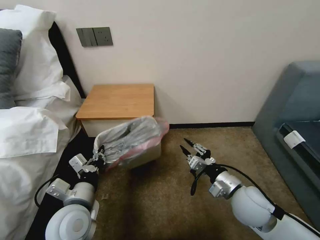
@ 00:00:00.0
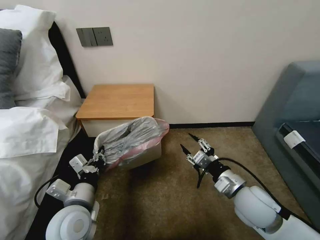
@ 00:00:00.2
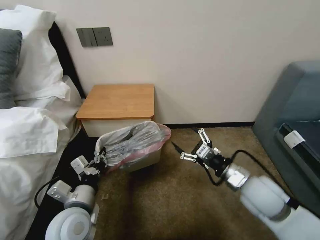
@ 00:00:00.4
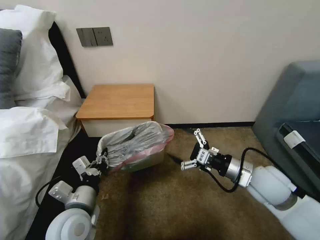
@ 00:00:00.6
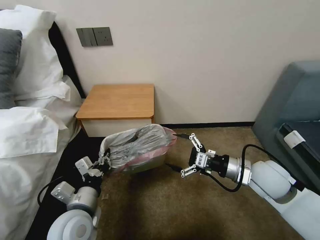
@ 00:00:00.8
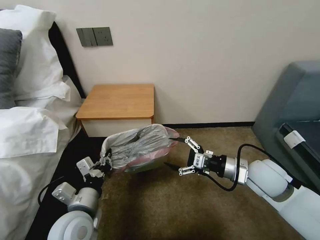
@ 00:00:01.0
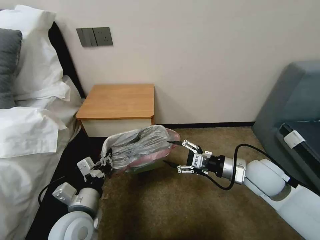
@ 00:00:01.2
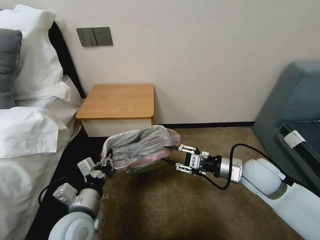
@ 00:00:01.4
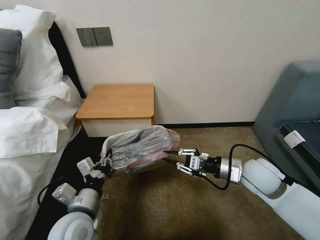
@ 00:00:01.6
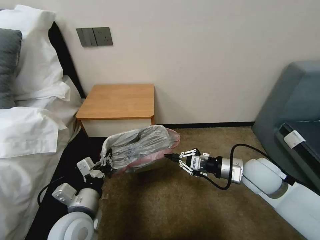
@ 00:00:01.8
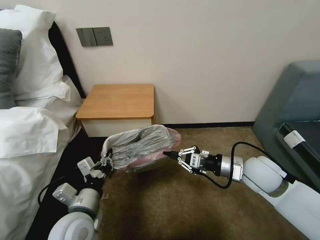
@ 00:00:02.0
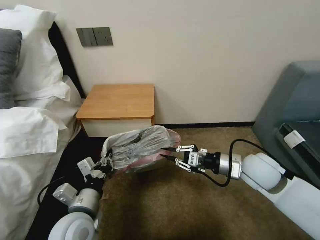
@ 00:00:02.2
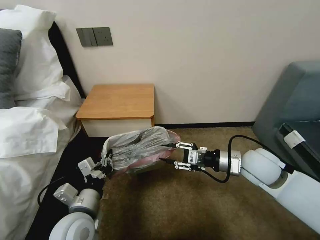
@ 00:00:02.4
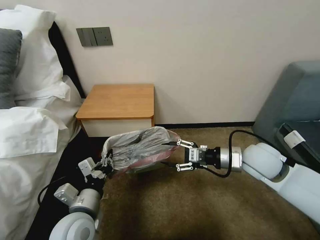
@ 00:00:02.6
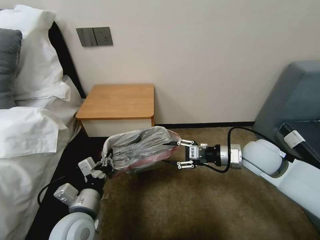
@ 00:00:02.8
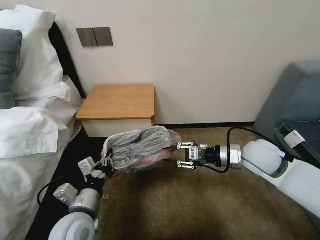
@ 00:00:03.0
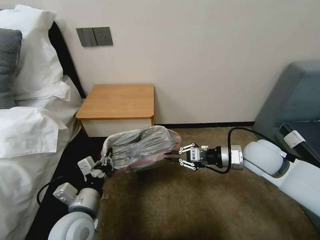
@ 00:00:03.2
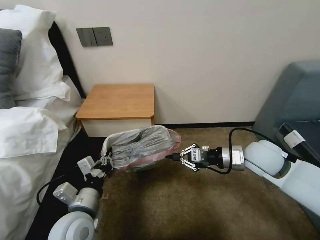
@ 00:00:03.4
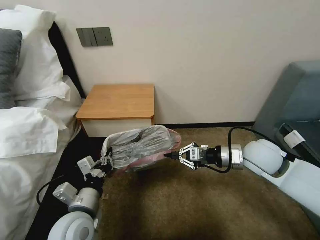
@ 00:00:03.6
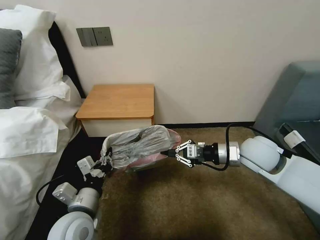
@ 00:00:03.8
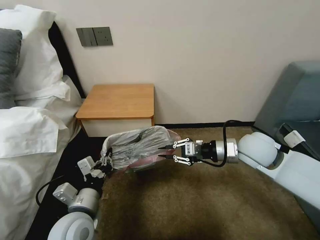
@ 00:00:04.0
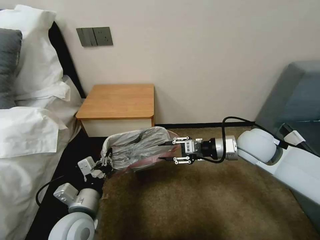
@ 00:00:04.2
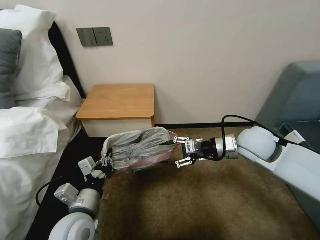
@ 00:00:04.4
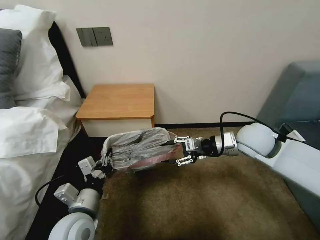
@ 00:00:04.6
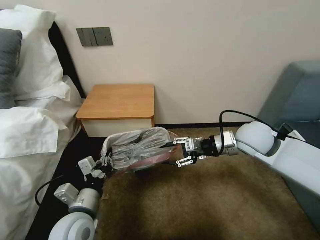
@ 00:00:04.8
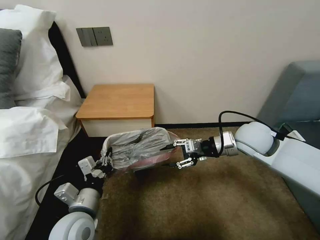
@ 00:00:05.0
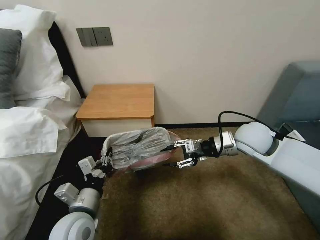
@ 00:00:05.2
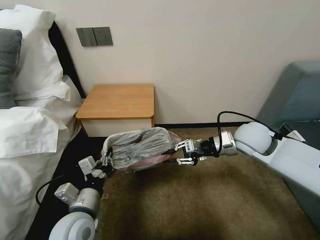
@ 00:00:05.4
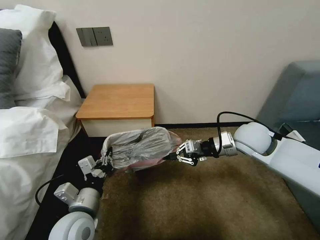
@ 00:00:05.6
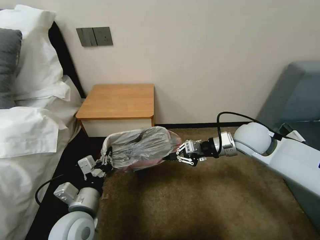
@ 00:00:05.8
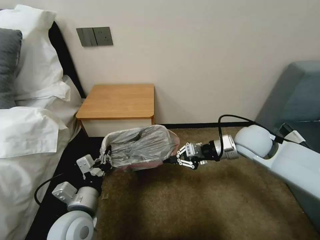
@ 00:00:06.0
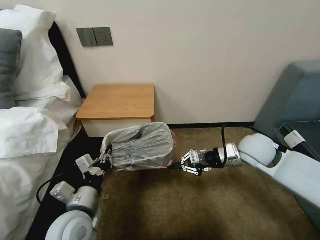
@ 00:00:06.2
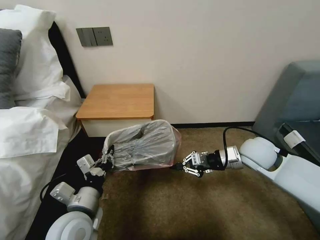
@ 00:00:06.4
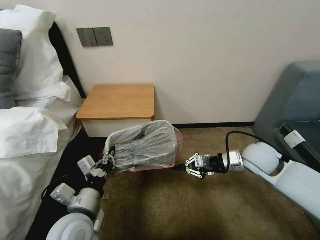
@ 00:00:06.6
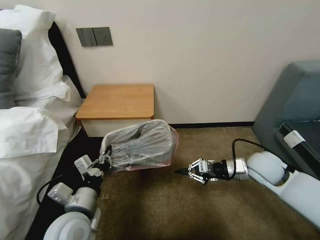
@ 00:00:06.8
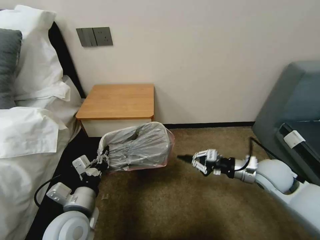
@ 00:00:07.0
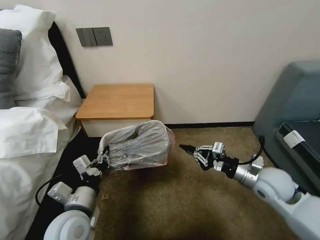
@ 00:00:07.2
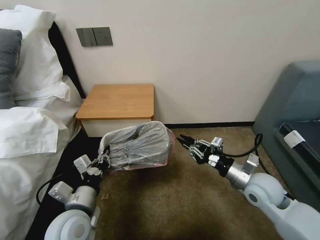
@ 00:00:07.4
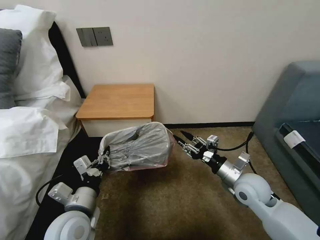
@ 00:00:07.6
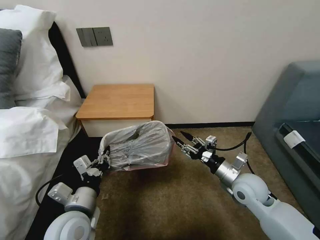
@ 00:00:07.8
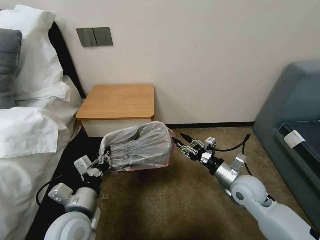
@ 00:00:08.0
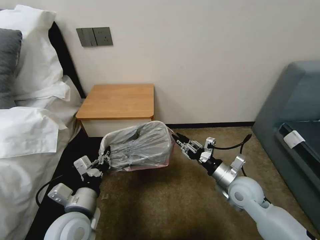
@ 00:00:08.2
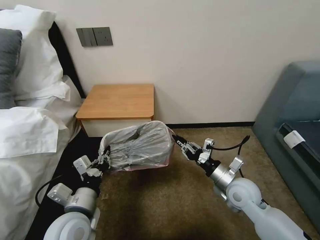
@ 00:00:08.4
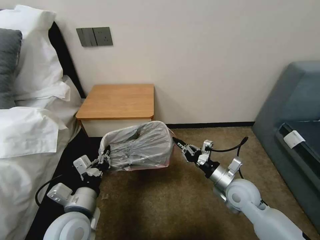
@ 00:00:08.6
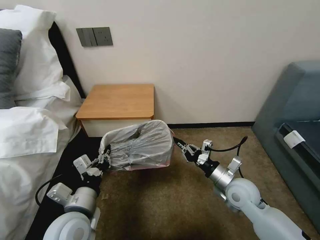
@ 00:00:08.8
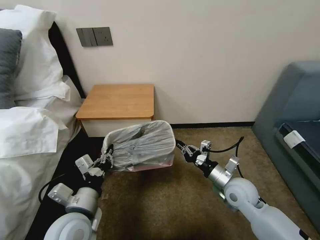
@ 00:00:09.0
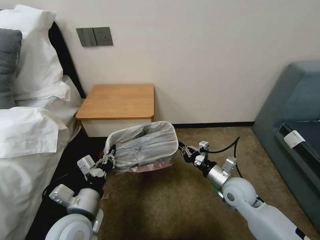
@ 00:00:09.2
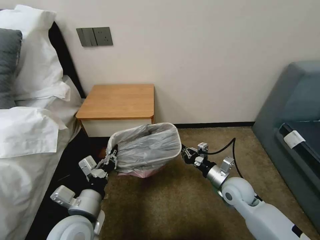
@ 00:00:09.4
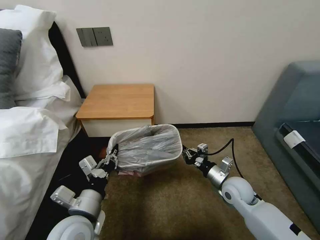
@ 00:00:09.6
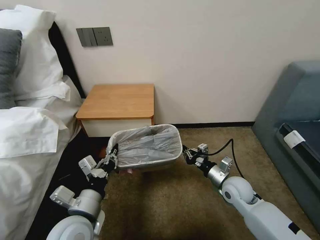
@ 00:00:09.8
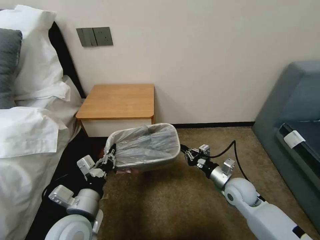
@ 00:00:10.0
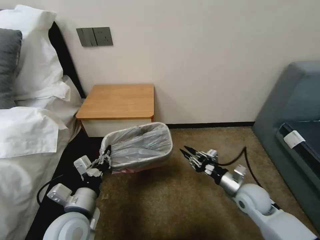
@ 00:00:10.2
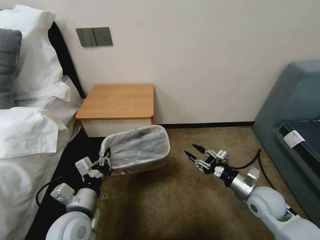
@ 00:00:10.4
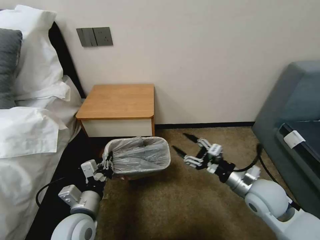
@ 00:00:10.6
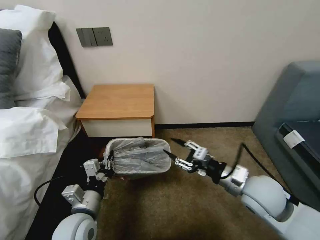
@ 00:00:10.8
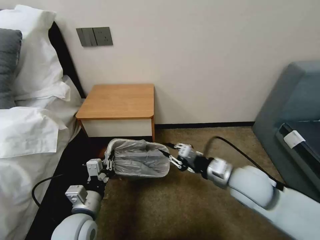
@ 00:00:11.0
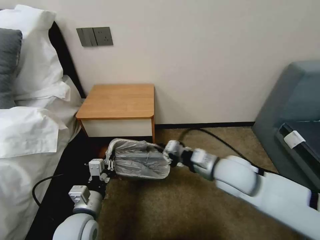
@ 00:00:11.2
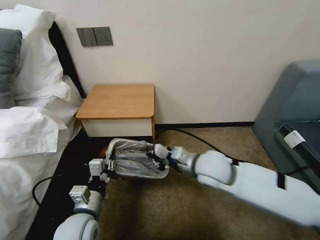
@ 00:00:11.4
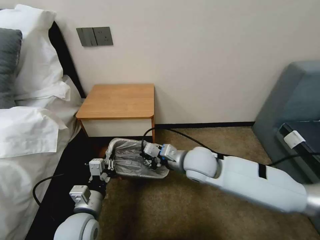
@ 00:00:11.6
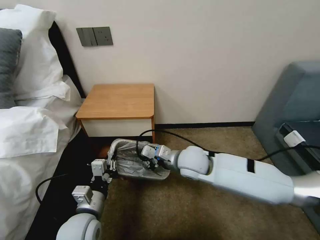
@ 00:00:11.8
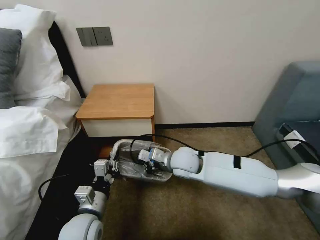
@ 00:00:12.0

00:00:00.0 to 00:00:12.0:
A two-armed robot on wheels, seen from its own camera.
Task of the whole recording: Pick up the garbage bag from the table and place it over the trash can.
00:00:00.0 to 00:00:01.6: The right gripper shifts roughly 5 cm forward, and opens and closes again.
00:00:01.6 to 00:00:03.0: The right gripper shifts by about 5 cm.
00:00:03.0 to 00:00:04.4: The right gripper closes, then reopens.
00:00:04.4 to 00:00:06.0: The right gripper closes up.
00:00:06.0 to 00:00:07.6: The right gripper heads downward and backward, covering about 15 cm, and opens.
00:00:07.6 to 00:00:09.0: The right gripper closes up.
00:00:09.0 to 00:00:10.4: The right gripper heads to the right, covering about 5 cm, and opens up.
00:00:10.4 to 00:00:12.0: The right gripper is displaced to the left and forward by some 25 cm, and closes up.

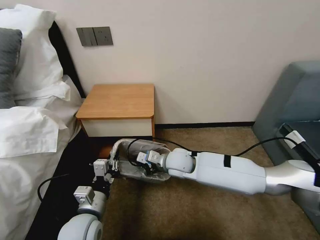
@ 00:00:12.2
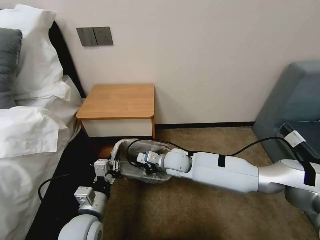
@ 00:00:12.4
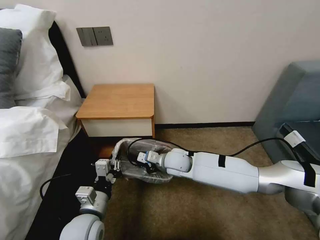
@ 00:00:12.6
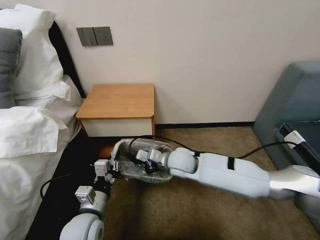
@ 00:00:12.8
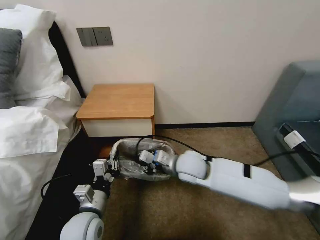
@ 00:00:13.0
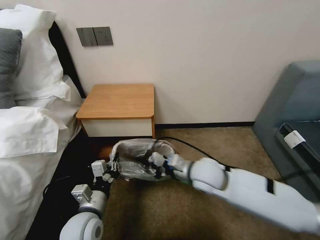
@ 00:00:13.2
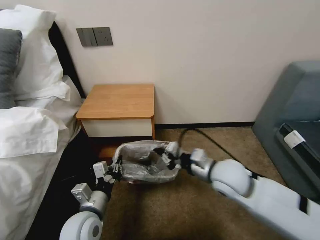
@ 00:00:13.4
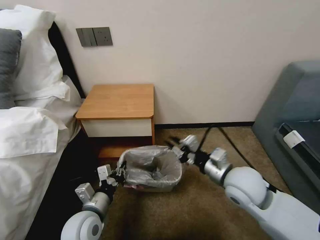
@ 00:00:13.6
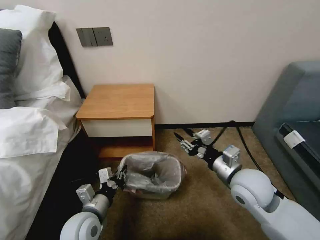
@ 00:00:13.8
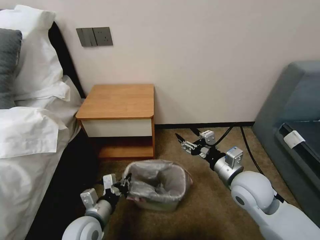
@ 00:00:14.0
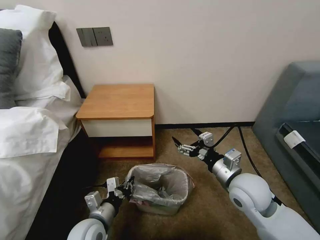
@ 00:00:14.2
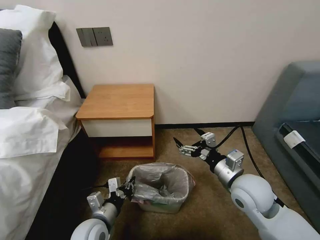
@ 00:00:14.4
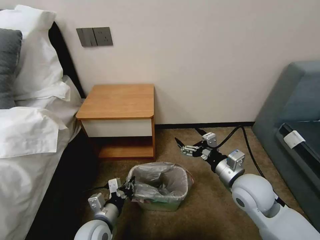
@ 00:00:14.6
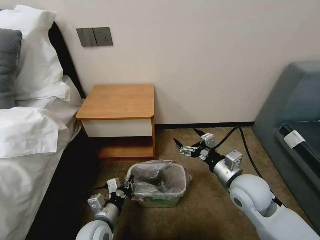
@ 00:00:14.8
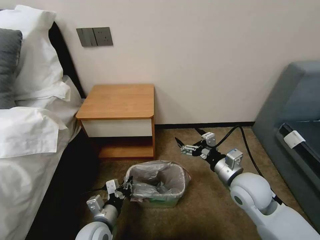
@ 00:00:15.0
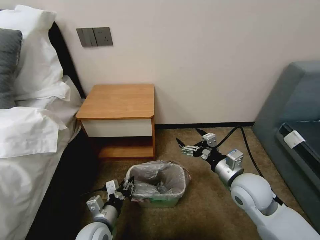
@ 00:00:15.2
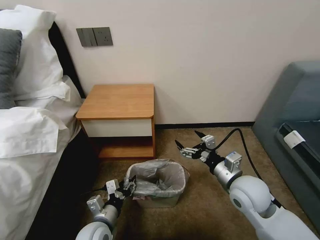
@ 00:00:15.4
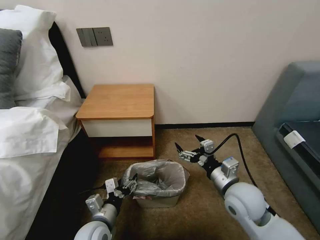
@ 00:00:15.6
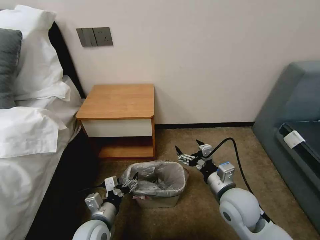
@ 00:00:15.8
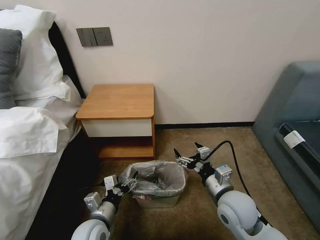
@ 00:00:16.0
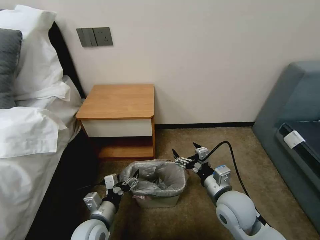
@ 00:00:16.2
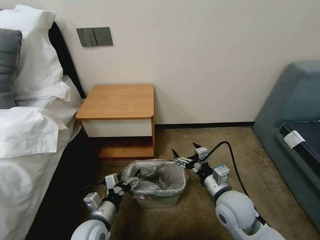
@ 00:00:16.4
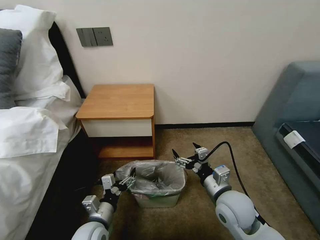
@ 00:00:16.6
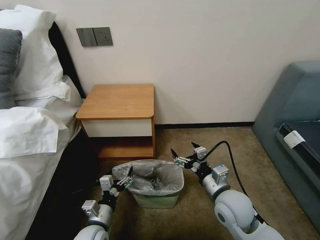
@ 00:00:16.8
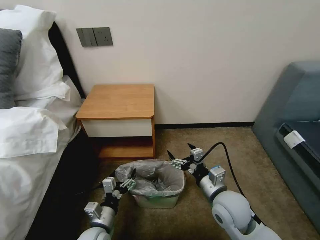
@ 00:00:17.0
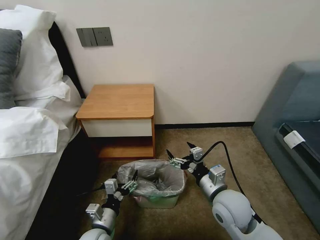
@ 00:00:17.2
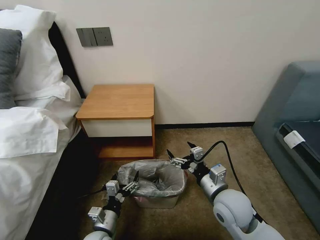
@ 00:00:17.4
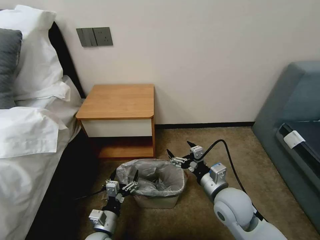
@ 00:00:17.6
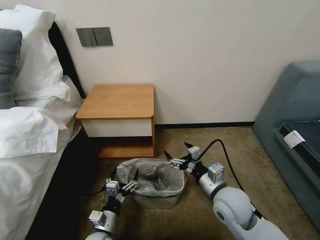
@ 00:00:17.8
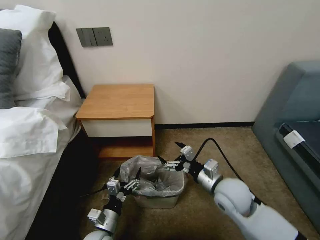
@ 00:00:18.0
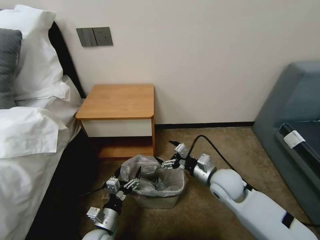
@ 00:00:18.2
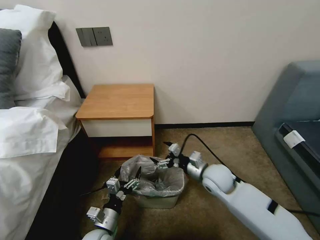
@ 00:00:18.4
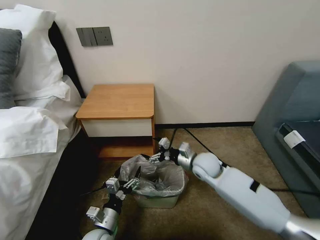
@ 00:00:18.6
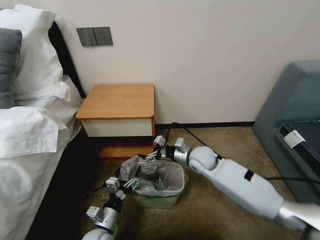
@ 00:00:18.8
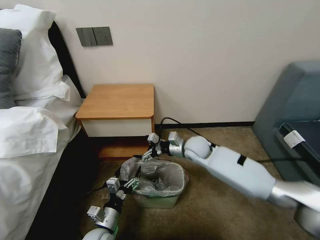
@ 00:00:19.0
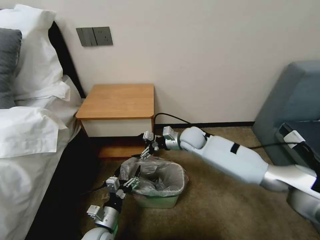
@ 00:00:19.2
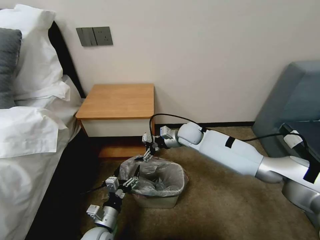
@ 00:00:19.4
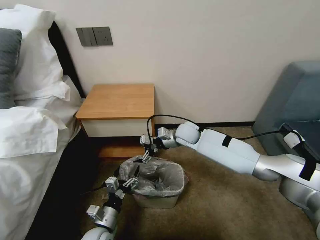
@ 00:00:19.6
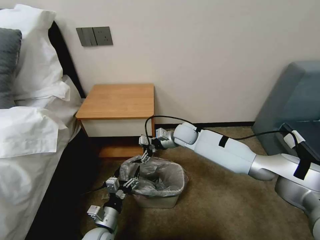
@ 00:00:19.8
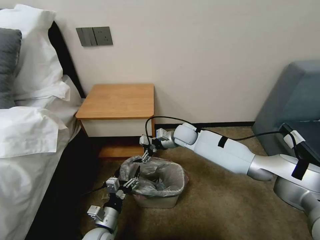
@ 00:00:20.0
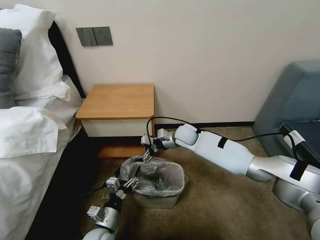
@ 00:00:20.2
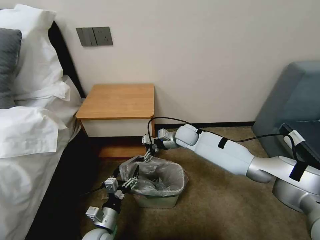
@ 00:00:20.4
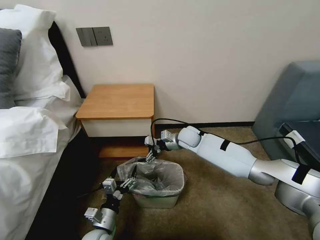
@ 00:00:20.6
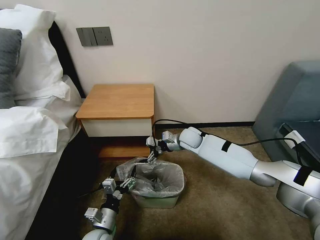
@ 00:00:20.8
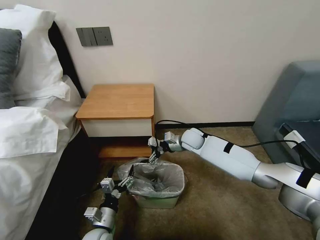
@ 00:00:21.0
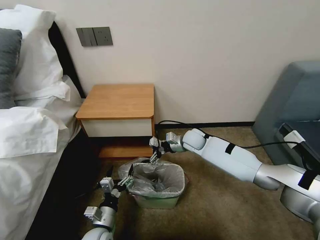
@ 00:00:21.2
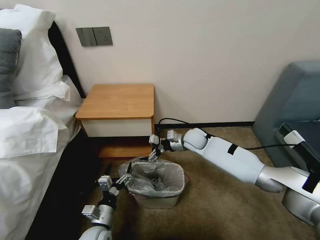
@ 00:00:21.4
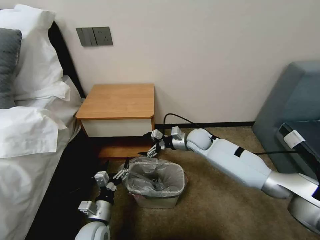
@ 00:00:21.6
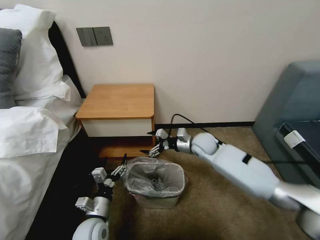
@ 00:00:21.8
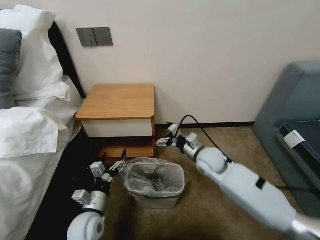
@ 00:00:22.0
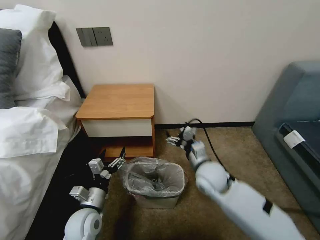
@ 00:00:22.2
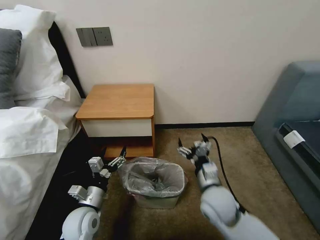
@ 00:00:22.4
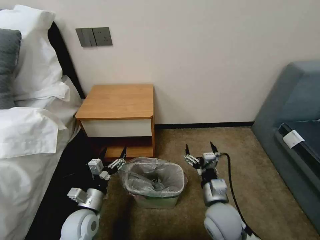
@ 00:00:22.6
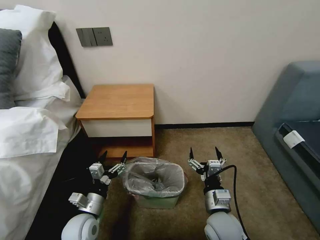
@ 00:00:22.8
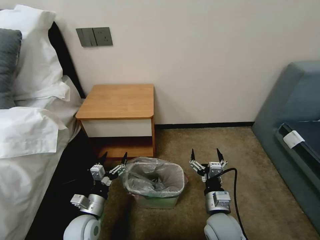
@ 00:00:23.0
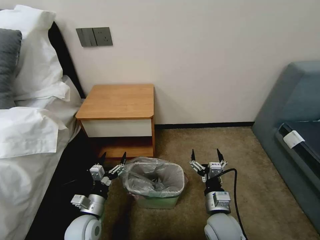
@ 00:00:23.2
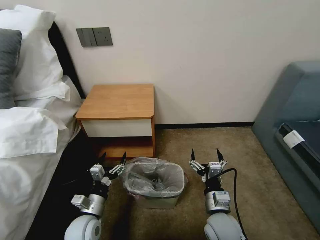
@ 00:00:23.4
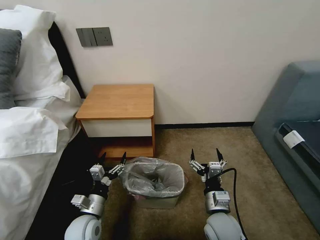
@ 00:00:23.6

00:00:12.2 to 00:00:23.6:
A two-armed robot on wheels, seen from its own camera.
Task of the whole recording: Pick up the garbage bag from the table and place it over the trash can.
00:00:12.2 to 00:00:13.6: The right gripper travels to the right, backward and upward by approximately 20 cm.
00:00:13.6 to 00:00:15.0: The right gripper opens up. The left gripper travels downward by approximately 5 cm.
00:00:15.0 to 00:00:16.4: The left gripper opens. Meanwhile the right gripper moves some 5 cm.
00:00:16.4 to 00:00:17.8: The left gripper heads downward, covering some 5 cm.
00:00:17.8 to 00:00:19.4: The right gripper heads forward, covering approximately 25 cm.
00:00:19.4 to 00:00:20.8: The grippers move only a little.
00:00:20.8 to 00:00:22.2: The left gripper shifts approximately 5 cm upward. Meanwhile the right gripper moves backward, roughly 20 cm.
00:00:22.2 to 00:00:23.6: The right gripper heads backward and downward, covering roughly 15 cm.
